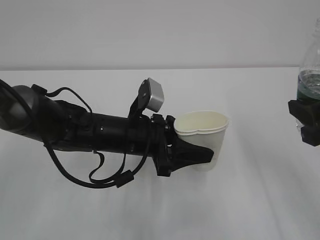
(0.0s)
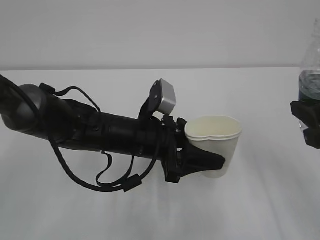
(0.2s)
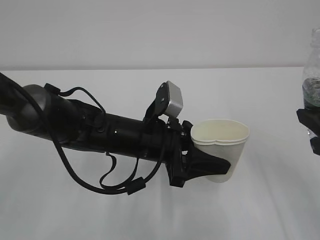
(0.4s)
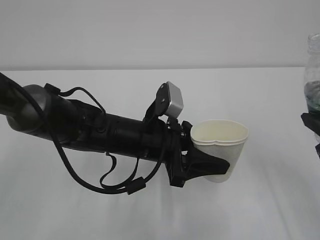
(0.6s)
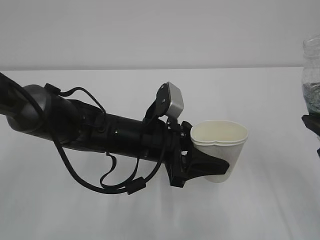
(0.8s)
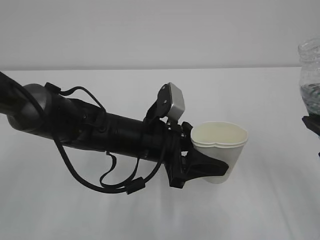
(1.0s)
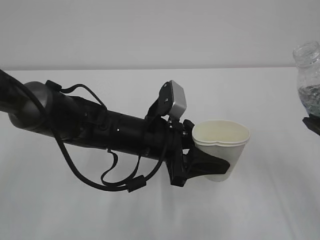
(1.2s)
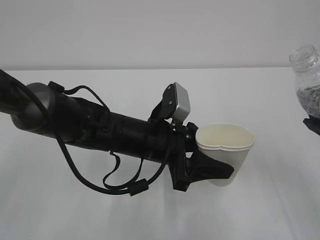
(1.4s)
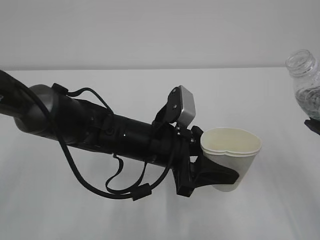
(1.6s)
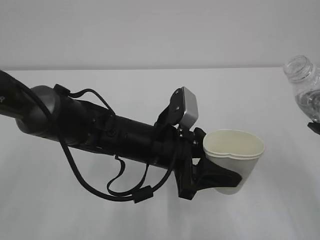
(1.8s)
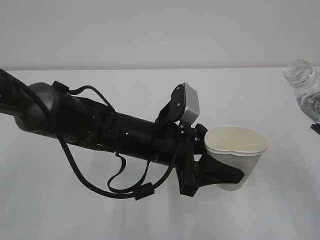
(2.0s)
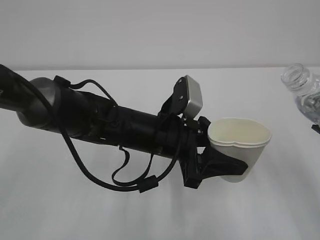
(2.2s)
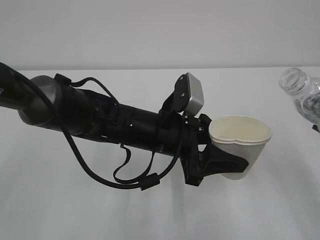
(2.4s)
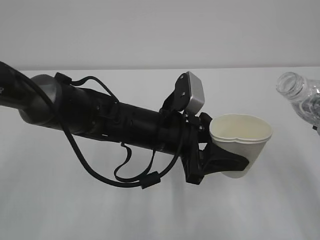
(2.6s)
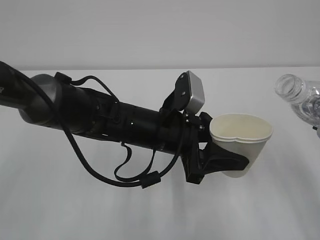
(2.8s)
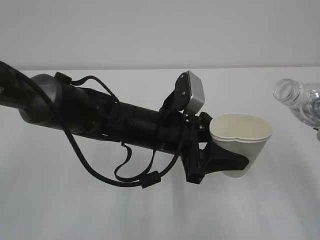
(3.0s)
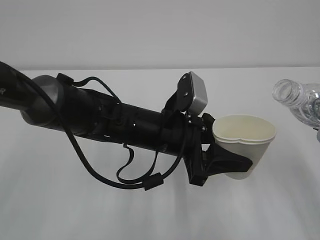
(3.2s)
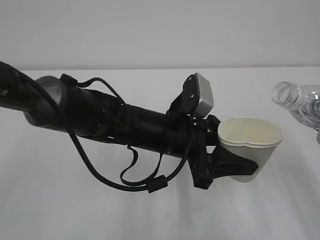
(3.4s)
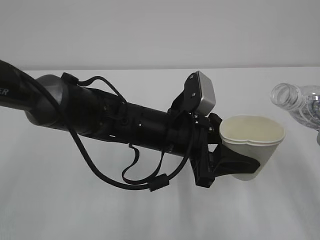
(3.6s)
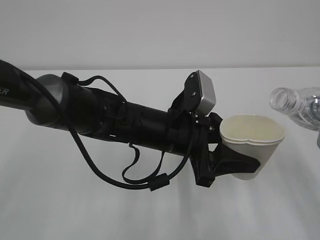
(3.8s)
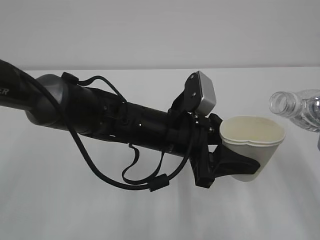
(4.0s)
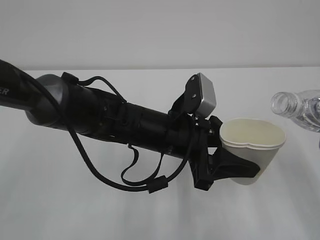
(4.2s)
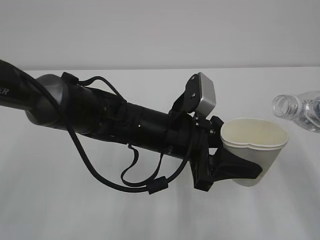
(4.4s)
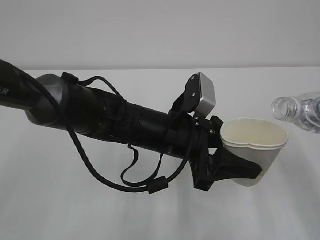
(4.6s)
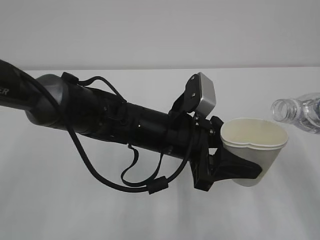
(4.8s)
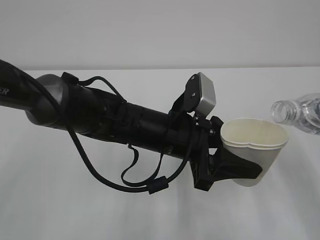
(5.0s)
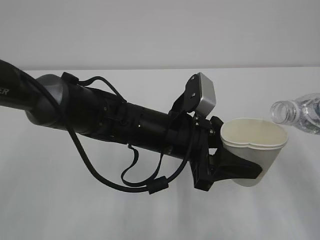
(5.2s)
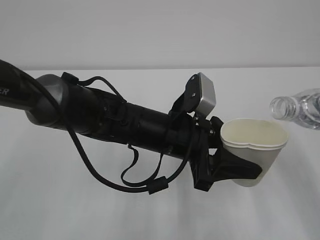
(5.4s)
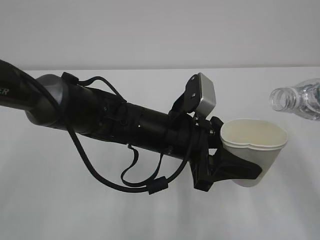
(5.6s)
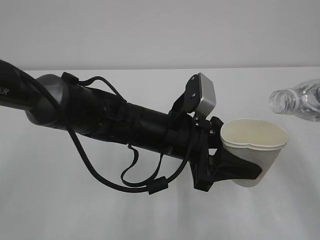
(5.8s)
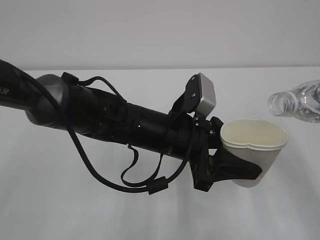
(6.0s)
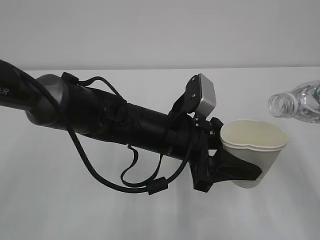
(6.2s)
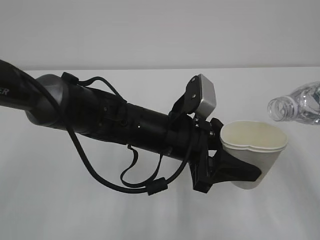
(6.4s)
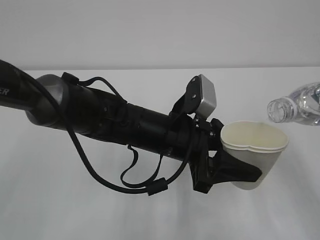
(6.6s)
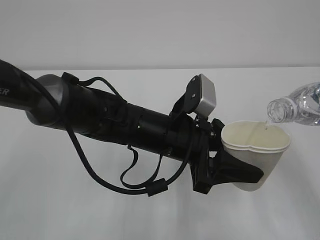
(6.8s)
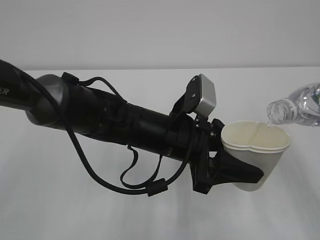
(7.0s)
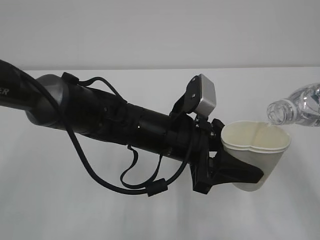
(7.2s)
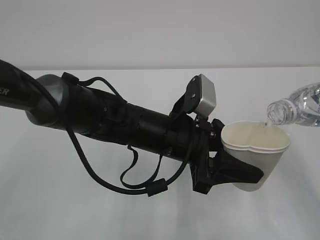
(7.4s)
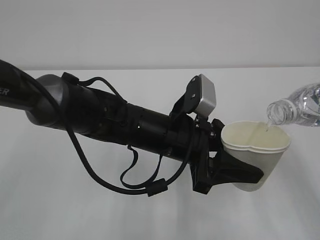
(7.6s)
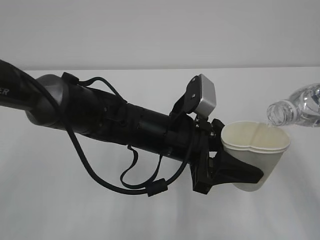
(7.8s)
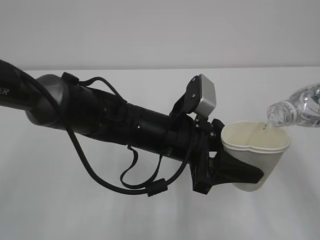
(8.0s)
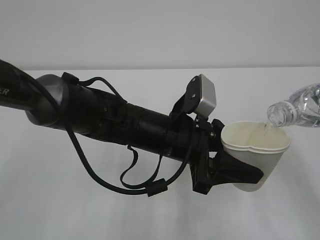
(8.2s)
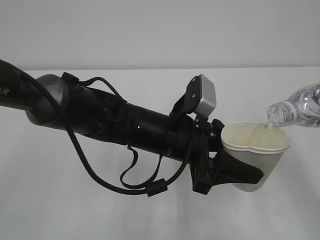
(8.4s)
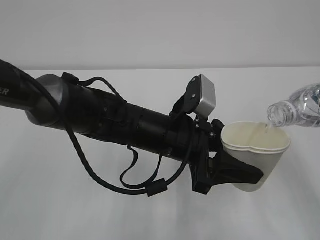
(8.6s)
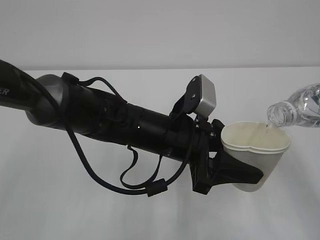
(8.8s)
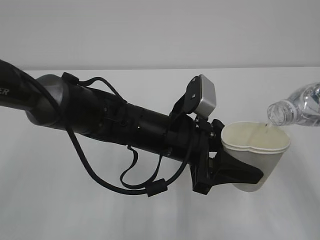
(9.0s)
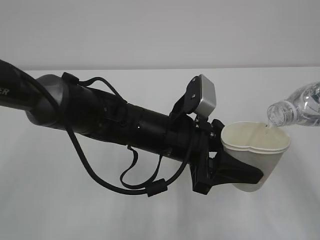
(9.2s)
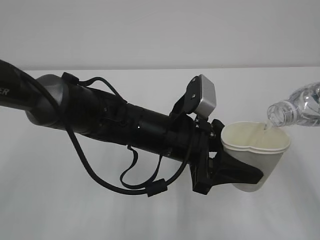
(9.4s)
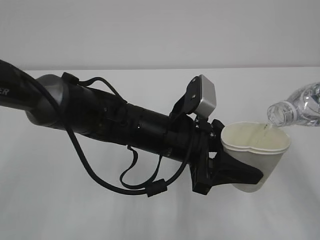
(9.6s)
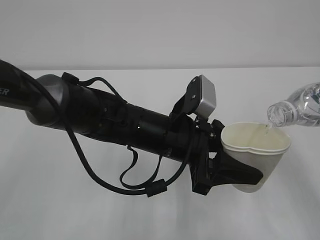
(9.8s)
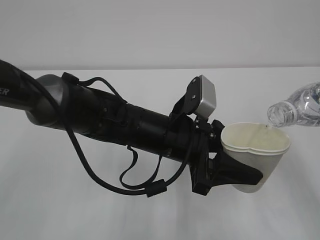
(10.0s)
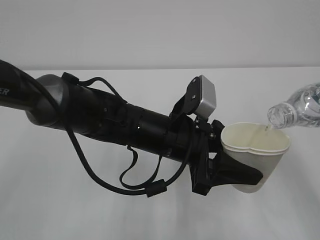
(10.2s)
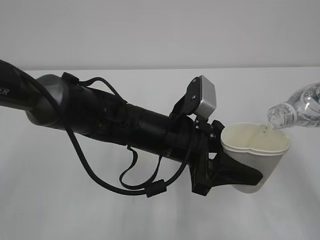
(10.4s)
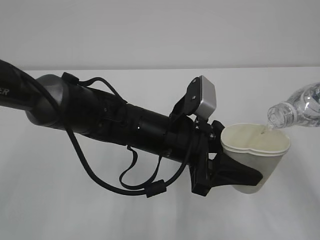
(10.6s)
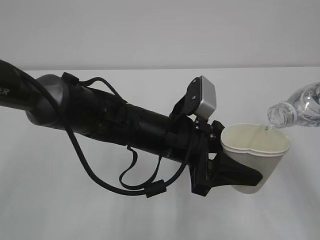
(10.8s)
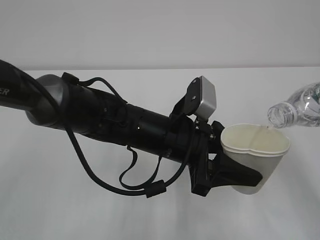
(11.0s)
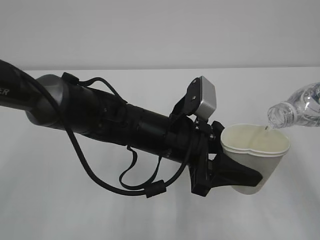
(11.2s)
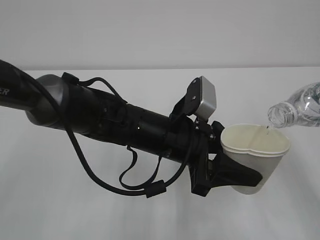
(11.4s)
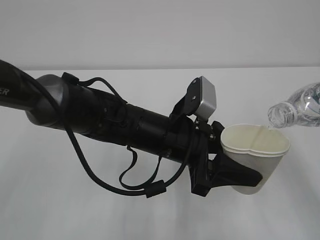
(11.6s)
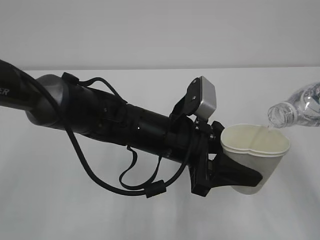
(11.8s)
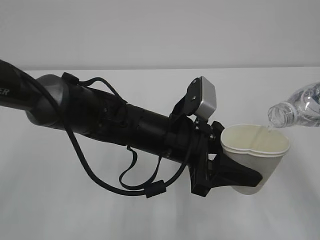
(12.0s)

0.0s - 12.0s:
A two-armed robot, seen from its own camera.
1.6s - 3.0s: The grippers stay close to where they were, moving slightly.
3.0s - 4.4s: The grippers move only a little.
4.4s - 7.6s: The grippers make only small movements.
7.6s - 12.0s: Neither gripper changes place.

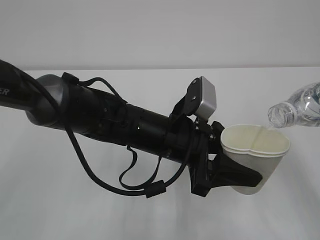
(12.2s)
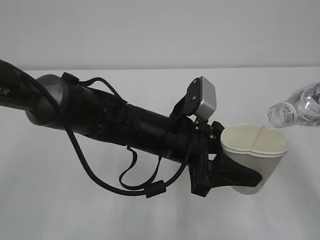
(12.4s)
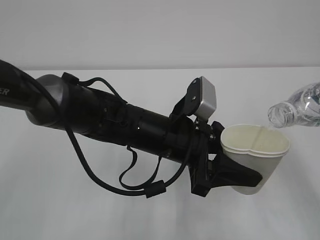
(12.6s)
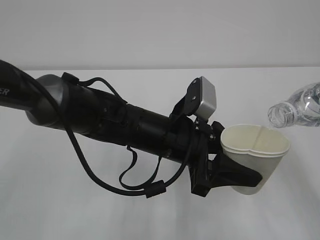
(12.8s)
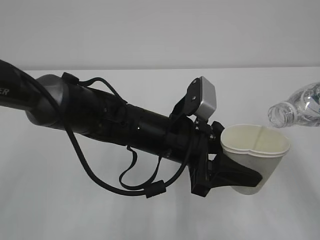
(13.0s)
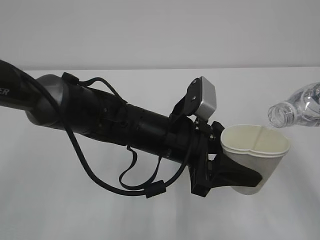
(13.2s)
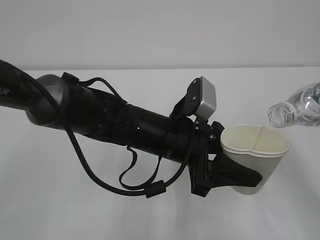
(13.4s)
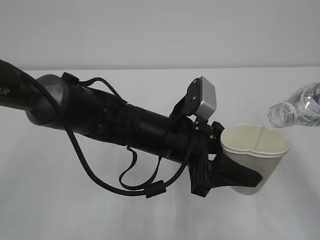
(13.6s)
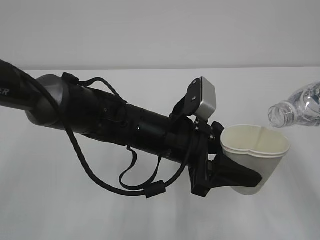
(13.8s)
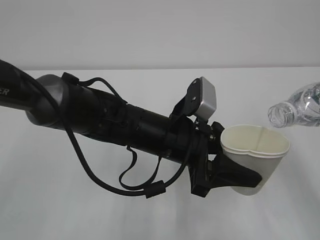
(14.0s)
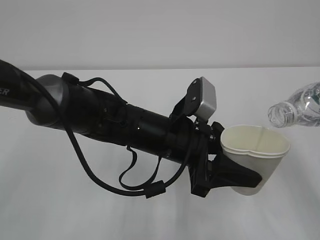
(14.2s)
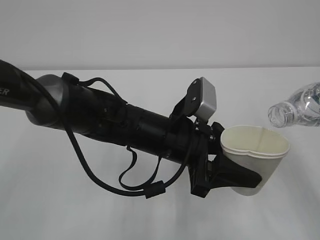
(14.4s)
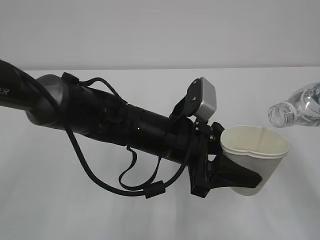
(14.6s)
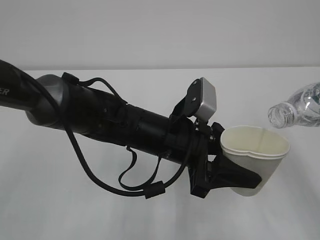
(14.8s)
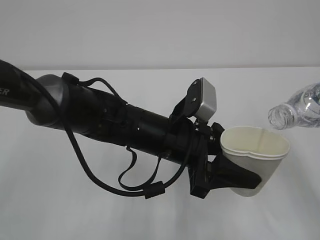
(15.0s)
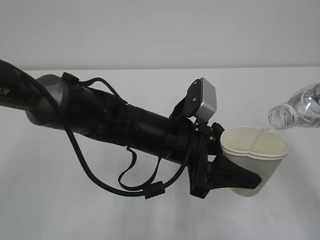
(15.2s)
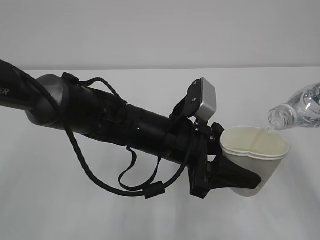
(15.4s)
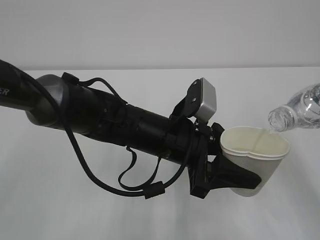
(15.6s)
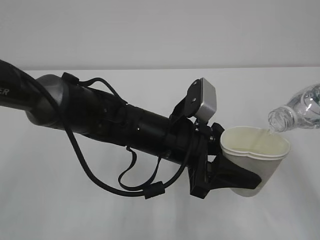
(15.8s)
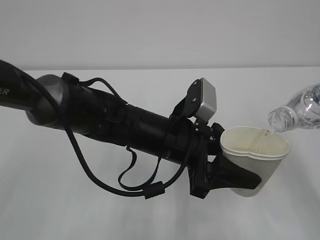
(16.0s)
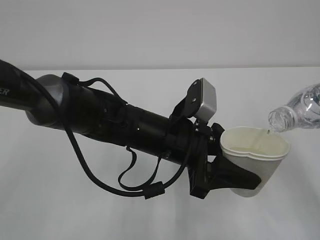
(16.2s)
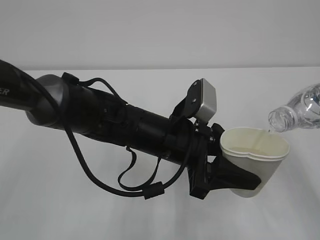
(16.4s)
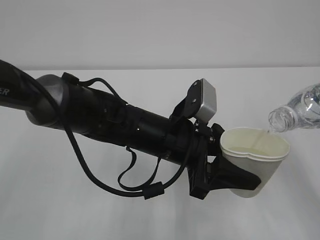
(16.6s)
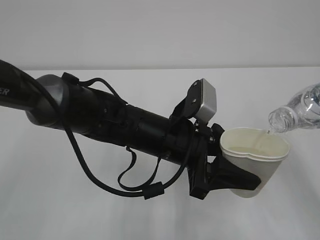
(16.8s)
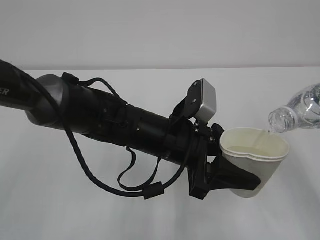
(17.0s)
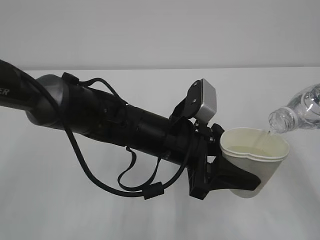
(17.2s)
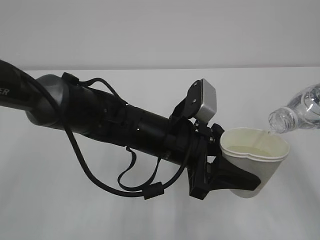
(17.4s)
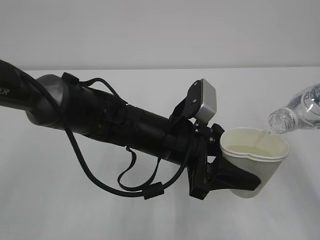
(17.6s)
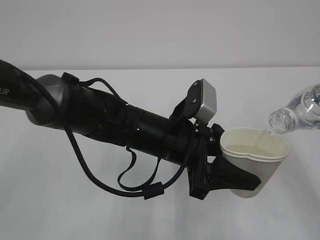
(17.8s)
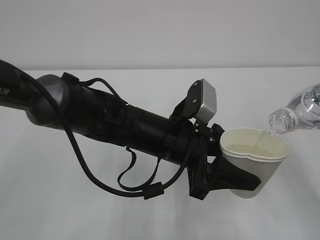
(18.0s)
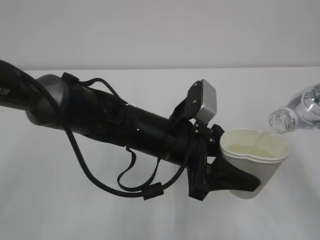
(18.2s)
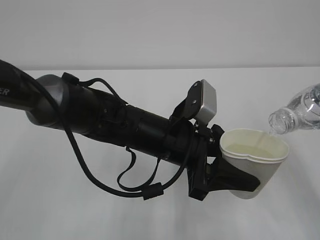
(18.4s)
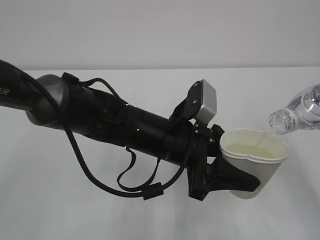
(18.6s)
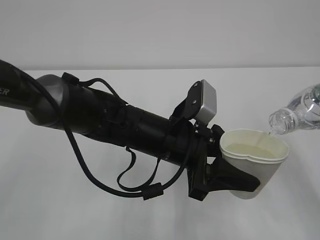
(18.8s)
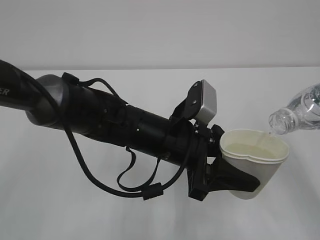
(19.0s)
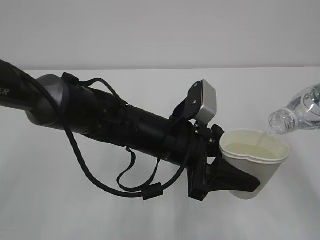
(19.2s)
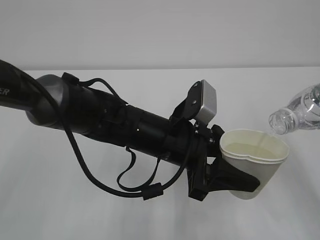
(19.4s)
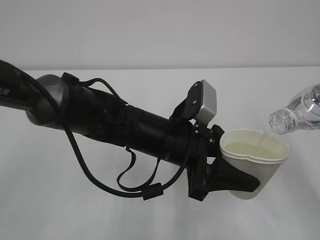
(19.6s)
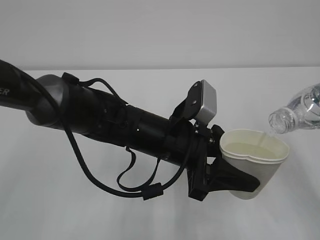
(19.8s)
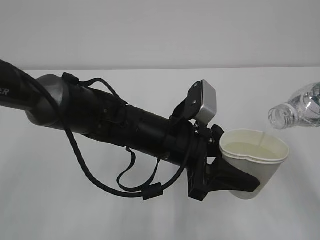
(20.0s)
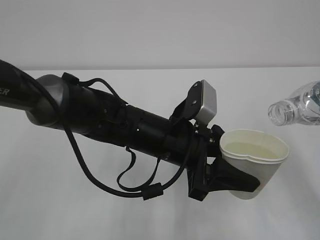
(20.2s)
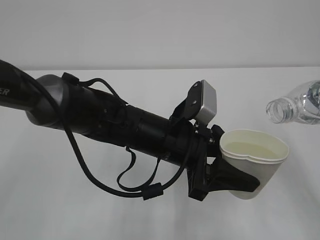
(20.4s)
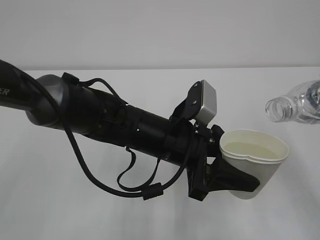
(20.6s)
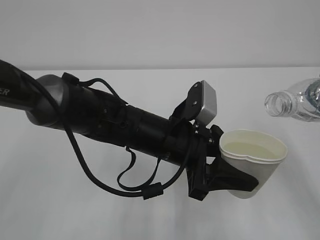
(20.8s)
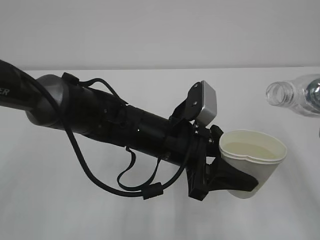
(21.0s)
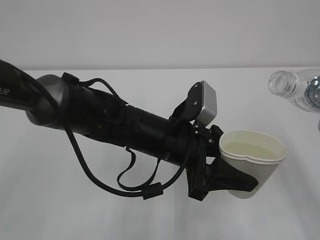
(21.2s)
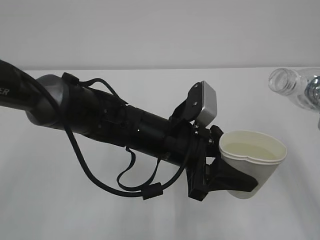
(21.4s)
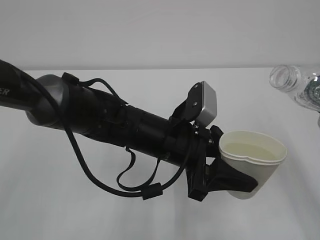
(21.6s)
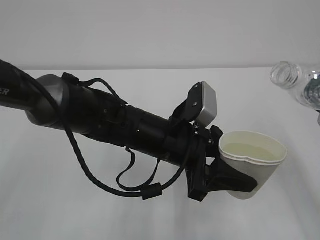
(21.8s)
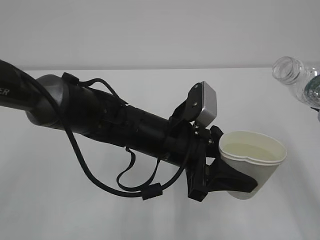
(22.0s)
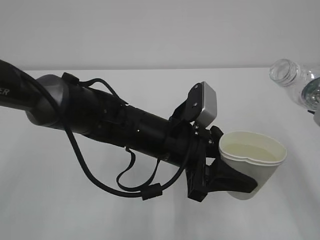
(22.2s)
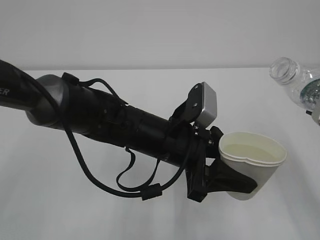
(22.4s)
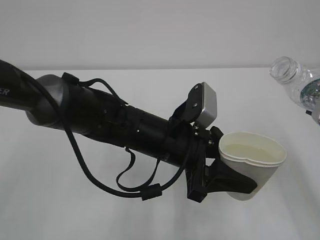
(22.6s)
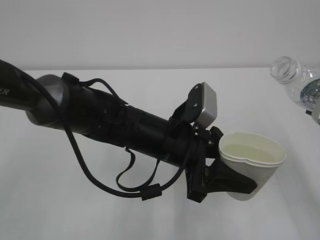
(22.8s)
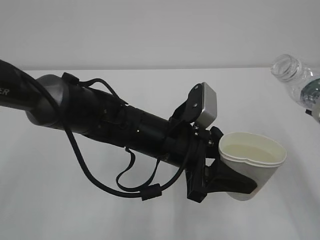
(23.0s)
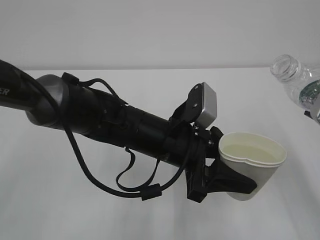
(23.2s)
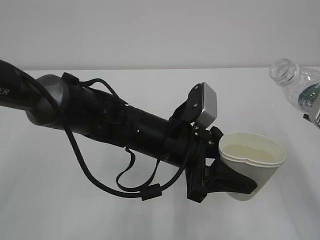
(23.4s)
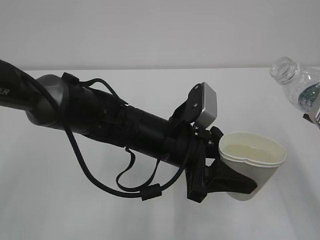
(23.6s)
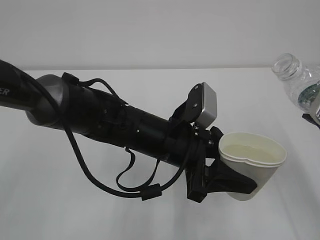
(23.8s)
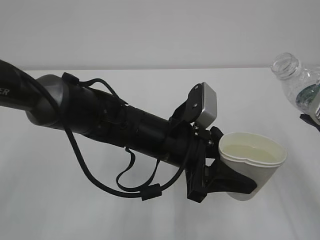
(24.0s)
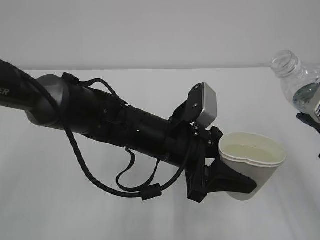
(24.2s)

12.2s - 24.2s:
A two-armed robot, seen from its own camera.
12.2s - 19.8s: Both grippers stay about where they are.
21.2s - 22.6s: There are only small adjustments of the grippers.
